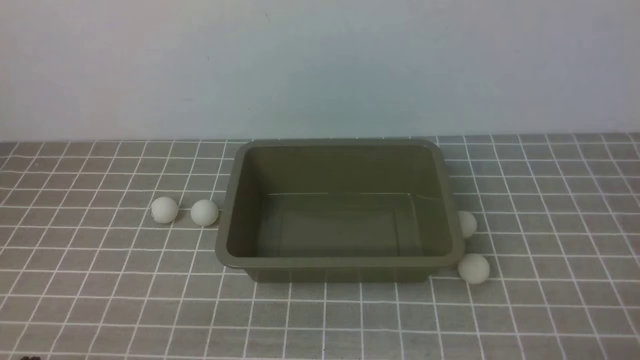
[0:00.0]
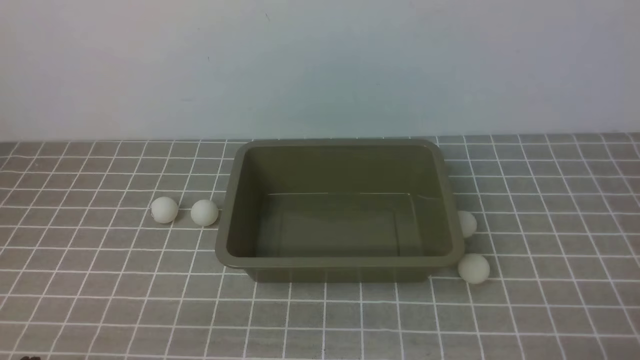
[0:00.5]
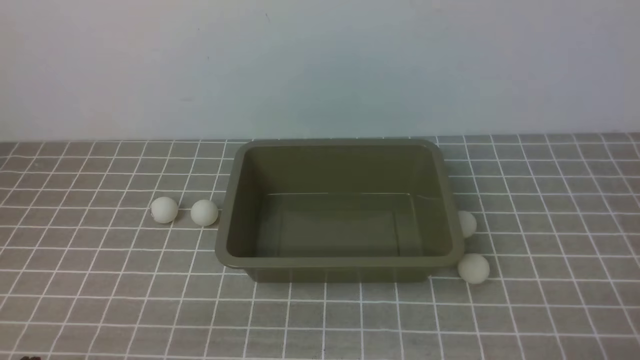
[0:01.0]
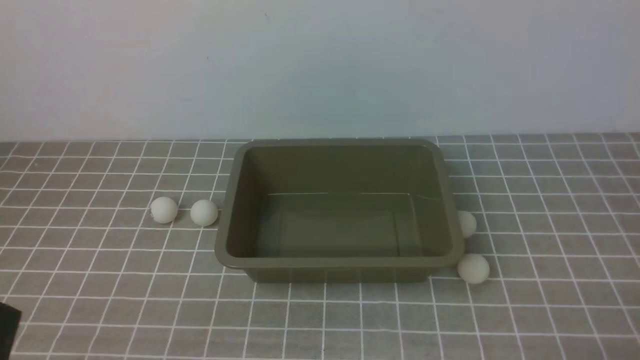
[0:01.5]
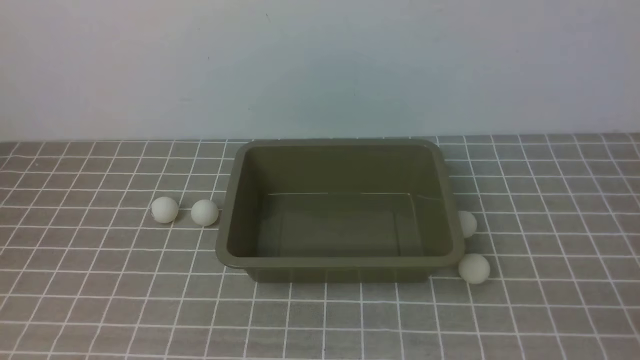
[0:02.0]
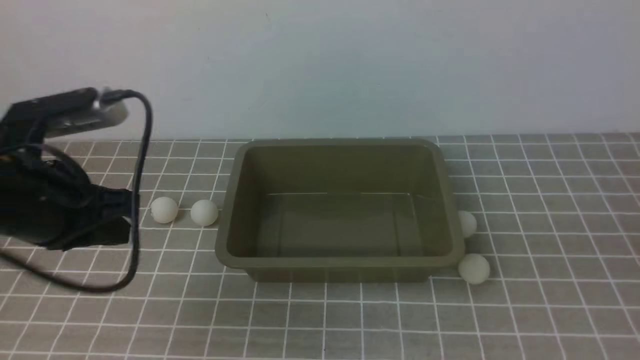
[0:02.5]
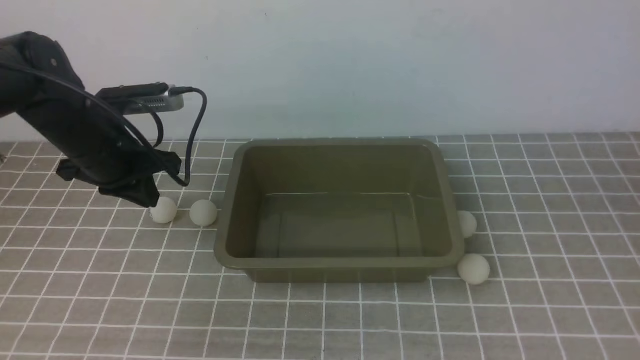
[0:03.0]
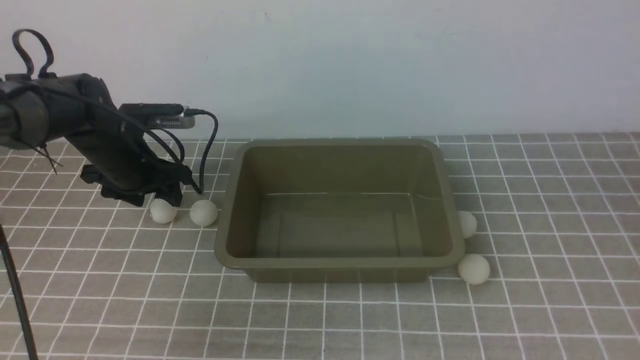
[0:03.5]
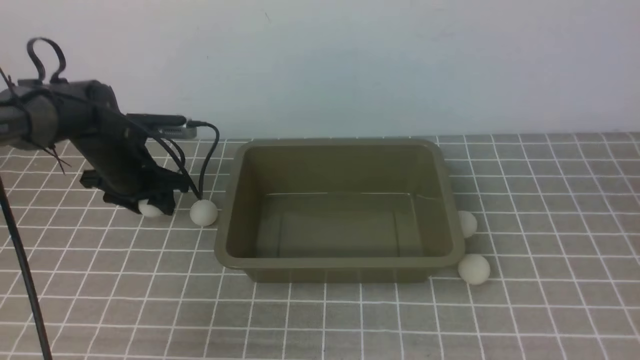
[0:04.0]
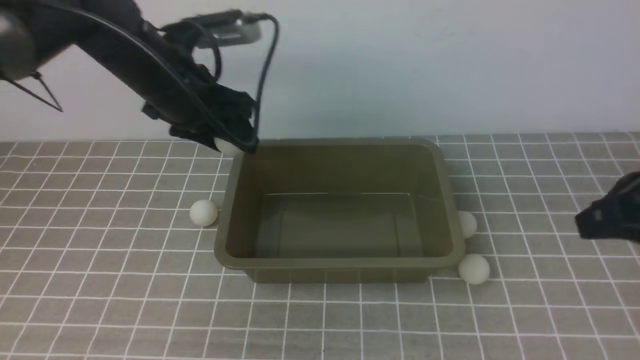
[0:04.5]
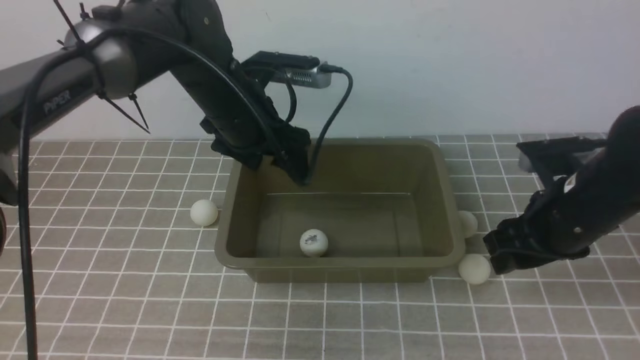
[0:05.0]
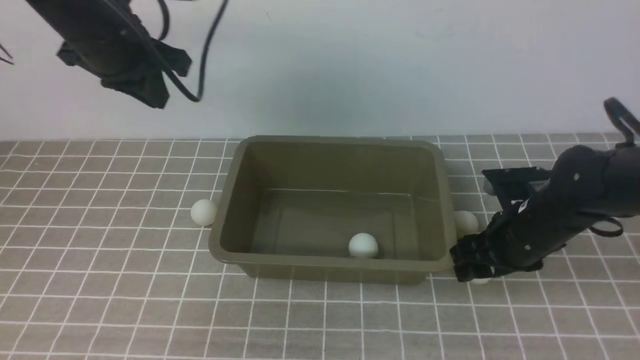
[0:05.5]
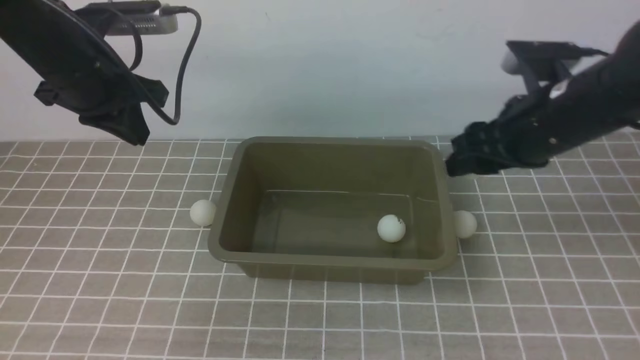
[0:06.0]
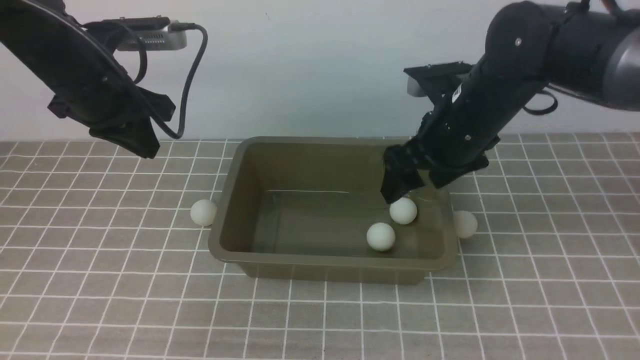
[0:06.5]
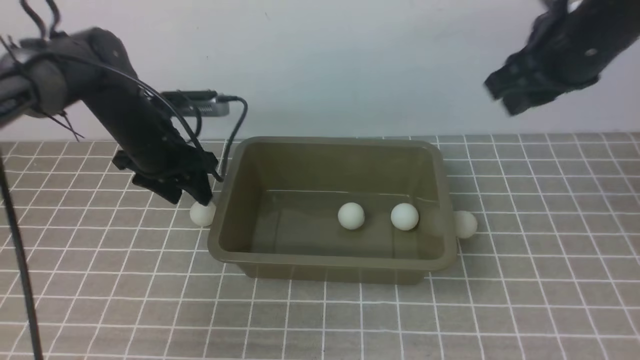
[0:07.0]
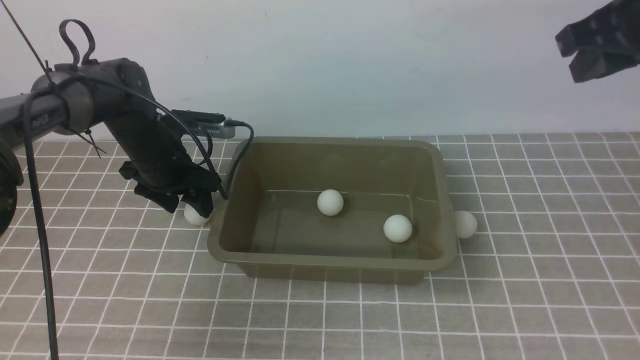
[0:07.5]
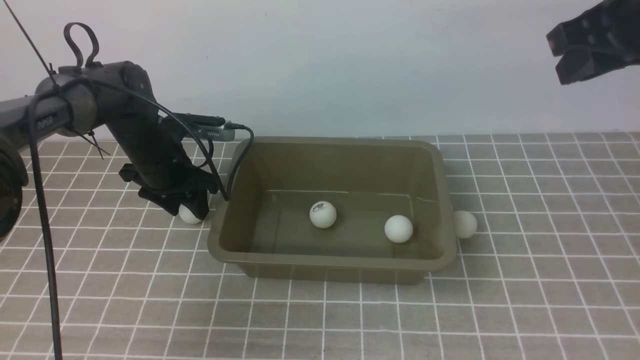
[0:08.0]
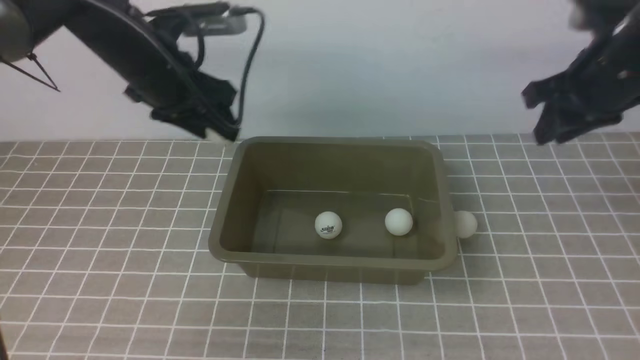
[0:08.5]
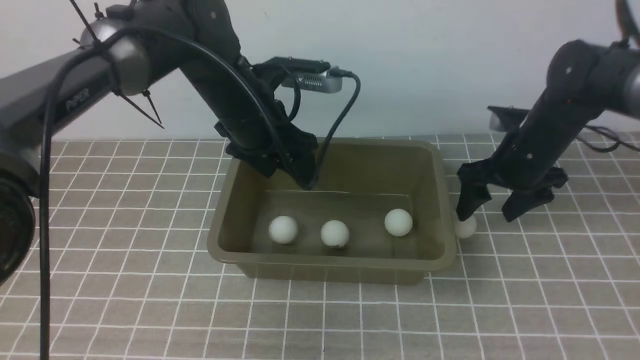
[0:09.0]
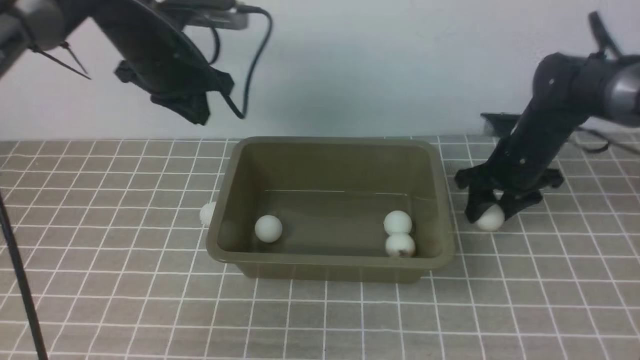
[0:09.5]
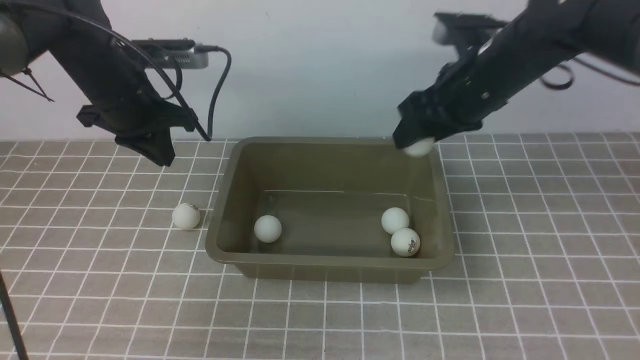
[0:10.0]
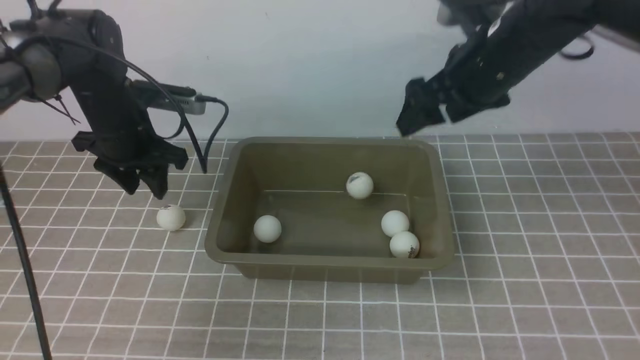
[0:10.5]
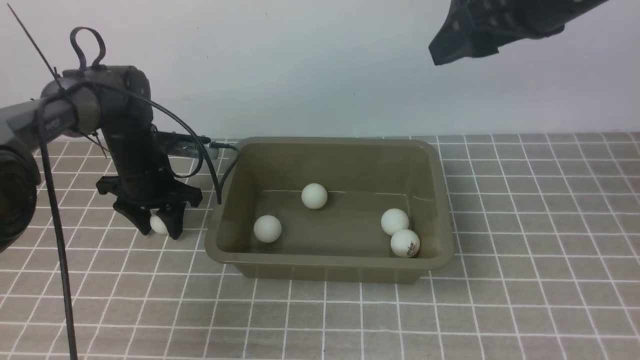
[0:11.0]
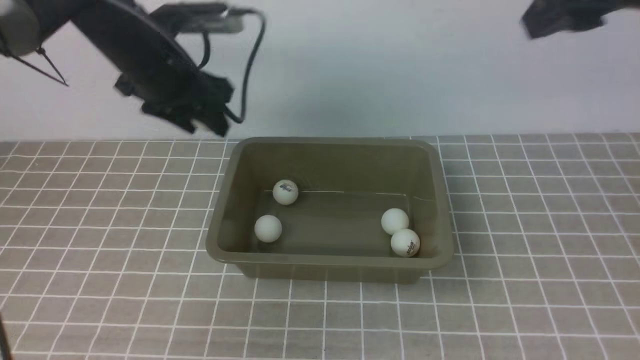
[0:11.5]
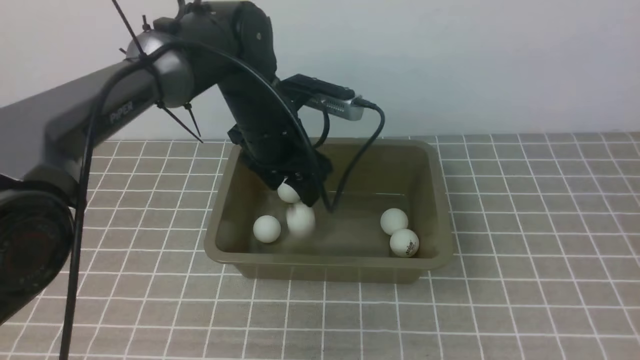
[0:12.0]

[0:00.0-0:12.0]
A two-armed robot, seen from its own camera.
Step, 0:00.0 to 0:04.0: use the left arm to clamp the table tennis ball closest to it.
Step, 0:06.0 to 0:06.5: use the right arm to put the table tennis ball into the box.
Step, 0:07.0 to 0:08.0: use the left arm to clamp the table tennis ball closest to it.
Step, 0:08.5 to 0:09.0: use the left arm to put the table tennis ball into the box.
Step, 0:10.0 to 0:10.5: use the right arm to put the table tennis ball into the box.
0:02.0 to 0:04.0: The left gripper travels forward by about 35 cm, and opens; the right gripper travels upward and forward by some 20 cm.
0:04.0 to 0:06.0: The left gripper goes roughly 15 cm upward, and closes up; the right gripper is displaced forward, downward and to the left by about 25 cm, and opens its fingers.
0:06.0 to 0:08.0: The right gripper travels upward and to the right by roughly 15 cm, and closes its fingers. The left gripper travels downward by some 15 cm, and opens its fingers.
0:08.0 to 0:10.0: The right gripper shifts roughly 15 cm downward, to the left and forward, and opens up; the left gripper is displaced upward by approximately 10 cm, and closes its fingers.
0:10.0 to 0:12.0: The left gripper is displaced to the right by about 15 cm, and opens, while the right gripper heads backward and upward, covering roughly 35 cm, and closes up.

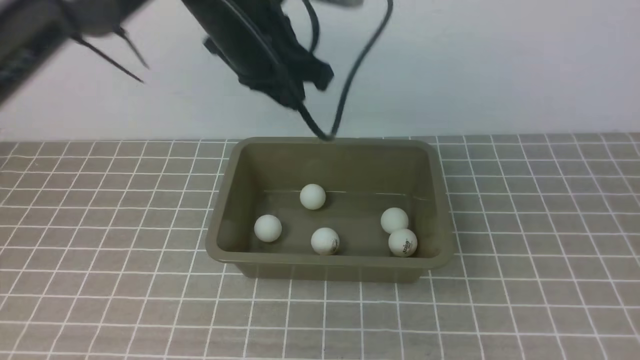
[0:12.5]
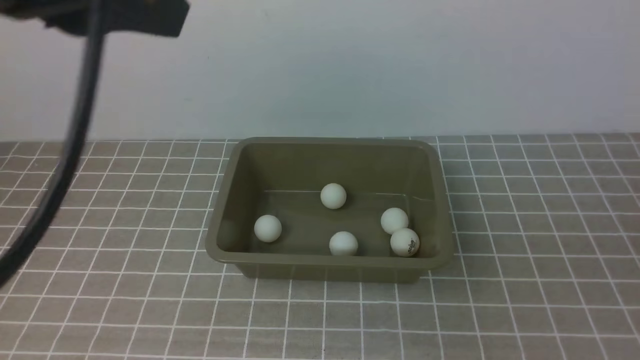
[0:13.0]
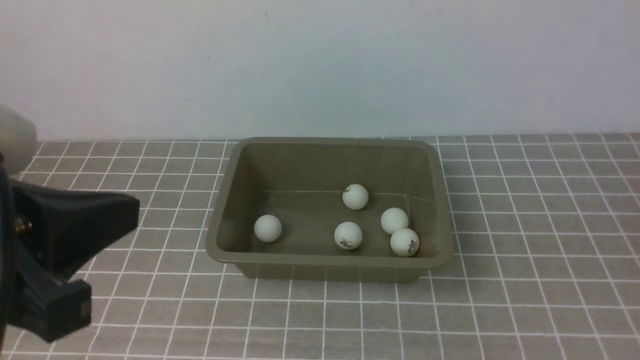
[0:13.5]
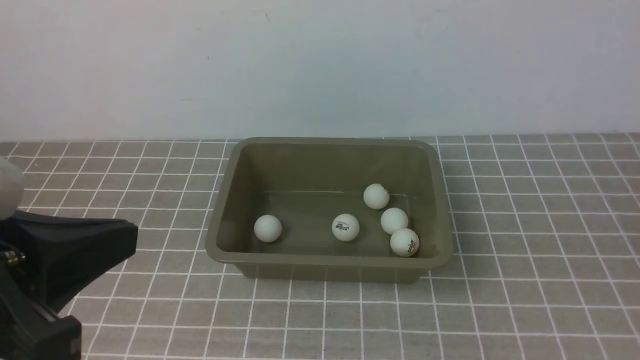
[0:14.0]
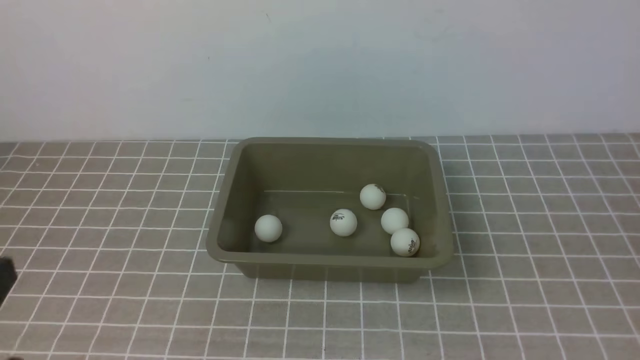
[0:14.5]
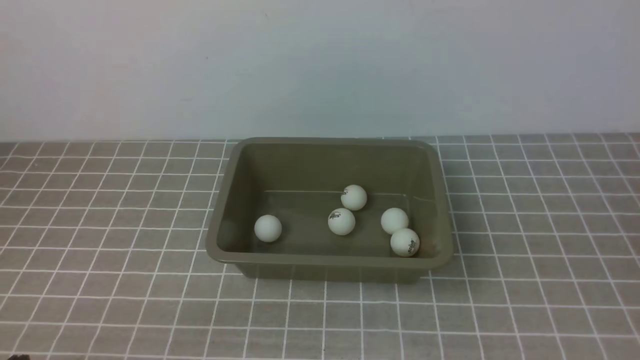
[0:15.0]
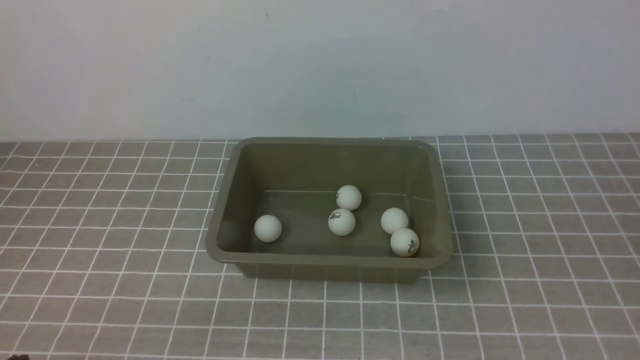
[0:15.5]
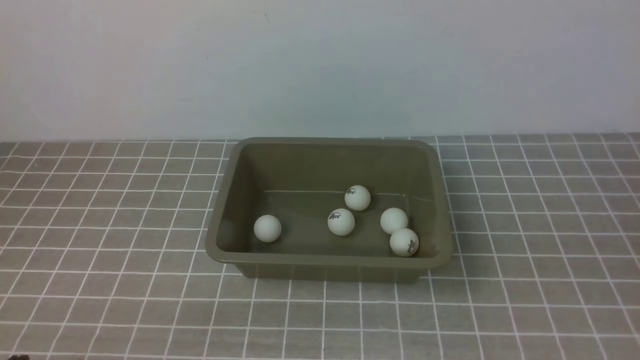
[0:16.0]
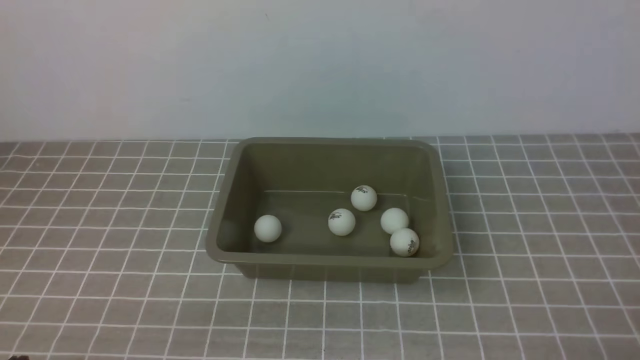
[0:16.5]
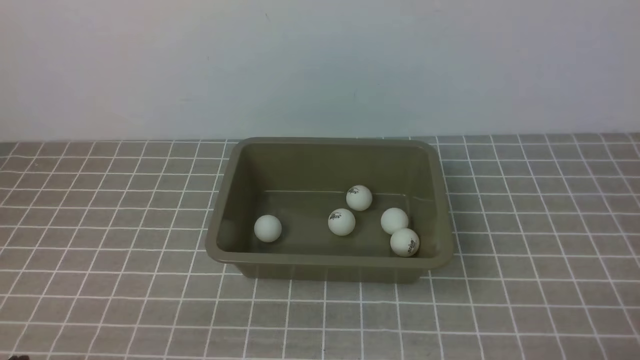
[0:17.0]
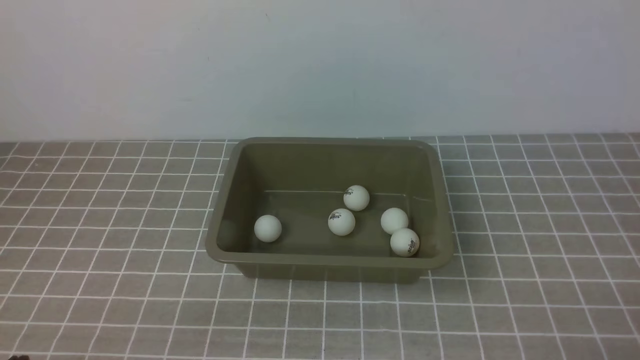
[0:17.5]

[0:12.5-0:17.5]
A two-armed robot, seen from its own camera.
0:12.5 to 0:15.0: The left gripper moves backward, downward and to the left, about 40 cm. Meanwhile the right gripper travels downward by approximately 5 cm.
